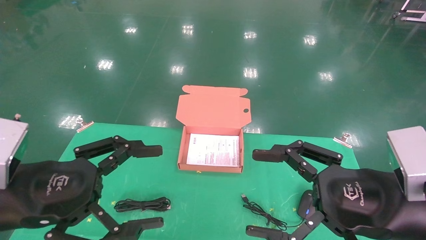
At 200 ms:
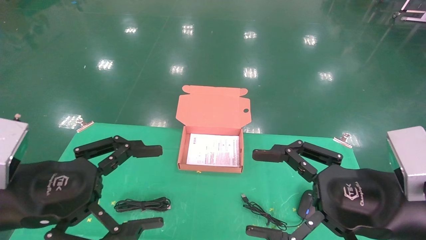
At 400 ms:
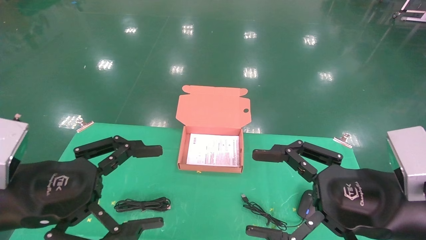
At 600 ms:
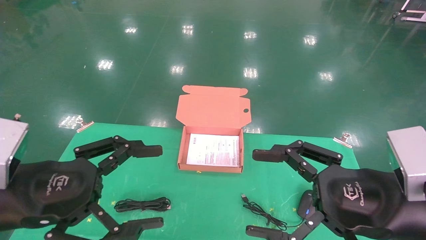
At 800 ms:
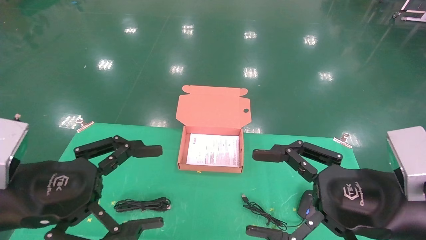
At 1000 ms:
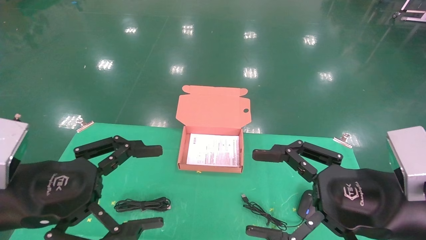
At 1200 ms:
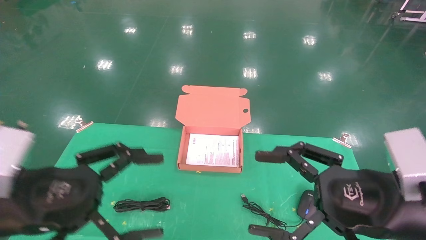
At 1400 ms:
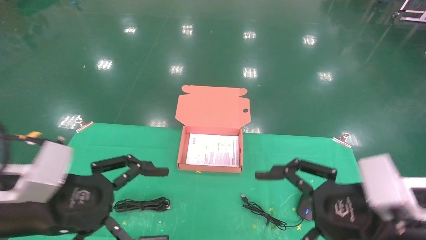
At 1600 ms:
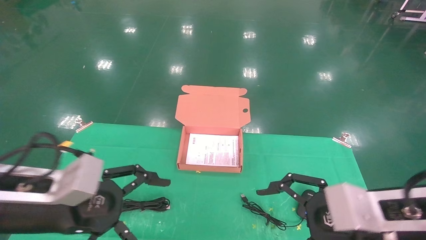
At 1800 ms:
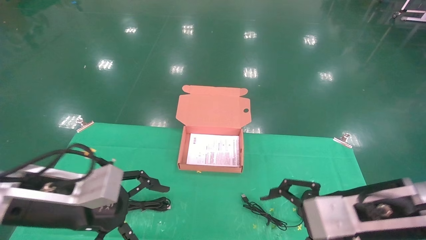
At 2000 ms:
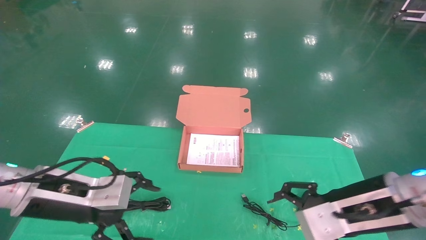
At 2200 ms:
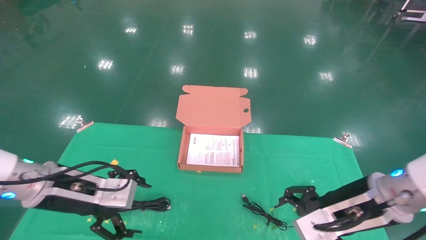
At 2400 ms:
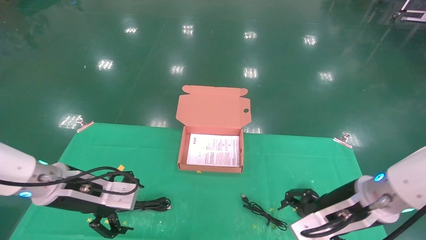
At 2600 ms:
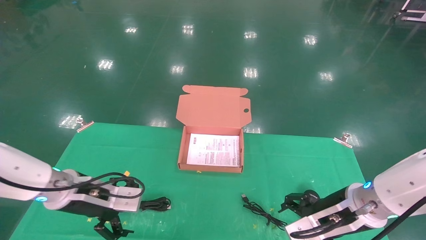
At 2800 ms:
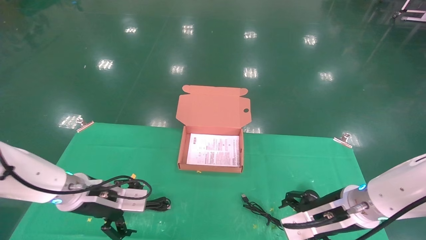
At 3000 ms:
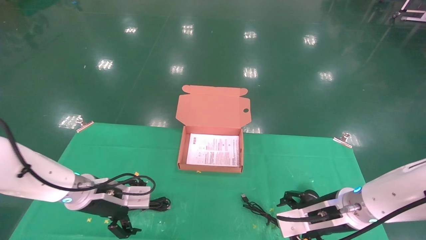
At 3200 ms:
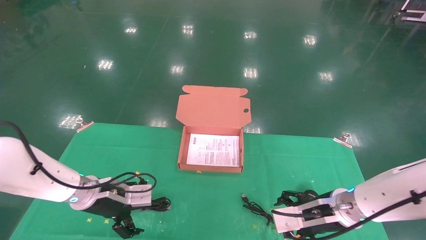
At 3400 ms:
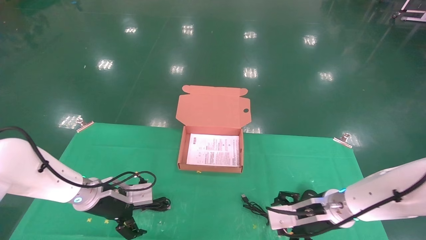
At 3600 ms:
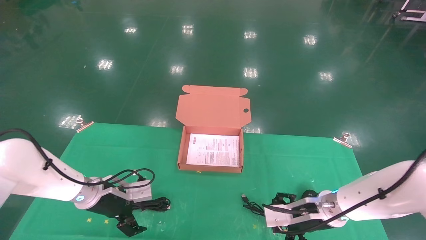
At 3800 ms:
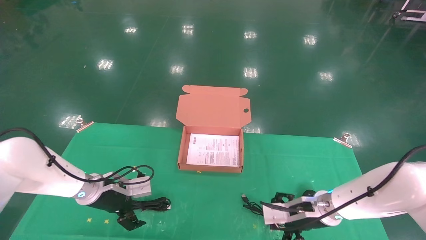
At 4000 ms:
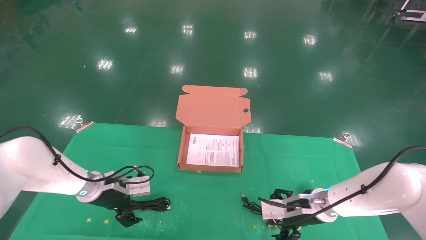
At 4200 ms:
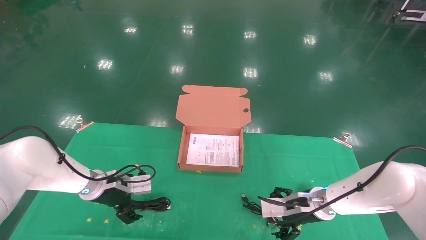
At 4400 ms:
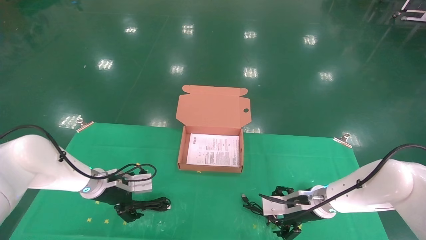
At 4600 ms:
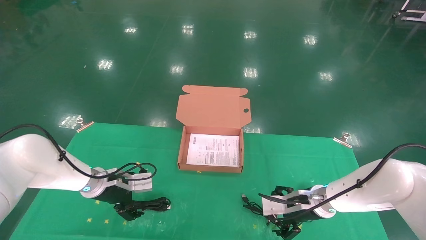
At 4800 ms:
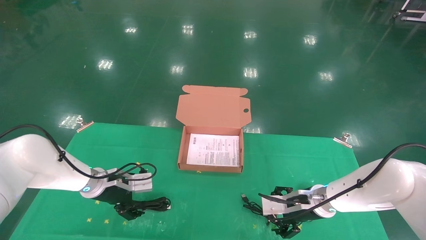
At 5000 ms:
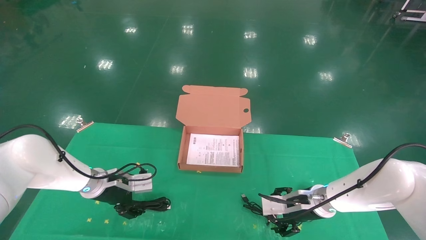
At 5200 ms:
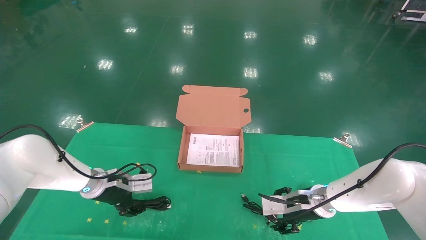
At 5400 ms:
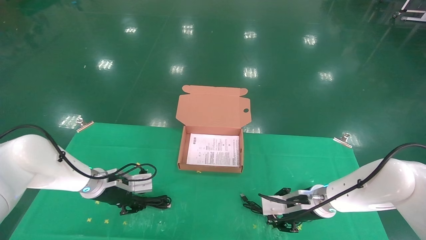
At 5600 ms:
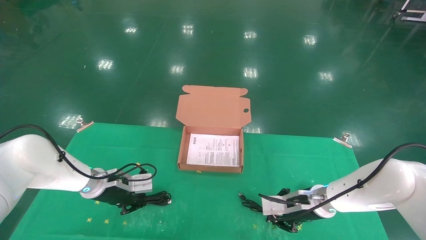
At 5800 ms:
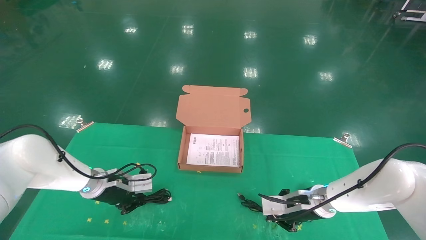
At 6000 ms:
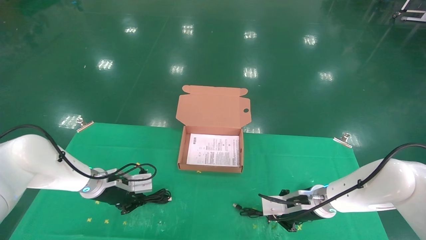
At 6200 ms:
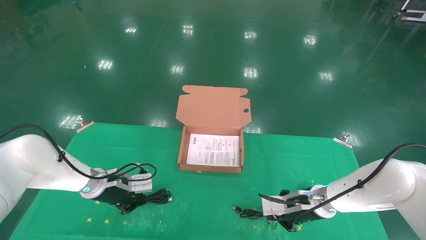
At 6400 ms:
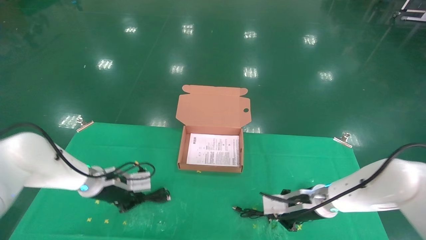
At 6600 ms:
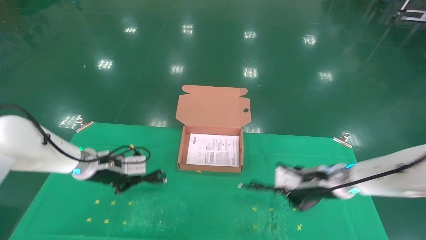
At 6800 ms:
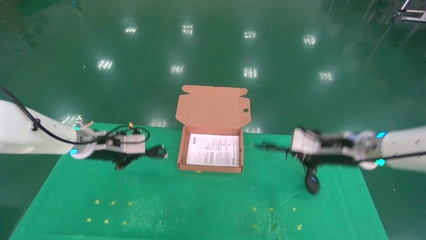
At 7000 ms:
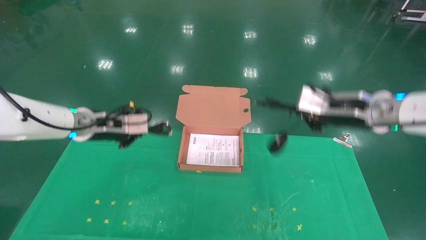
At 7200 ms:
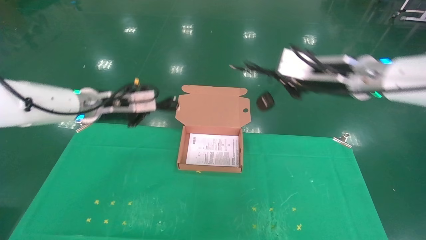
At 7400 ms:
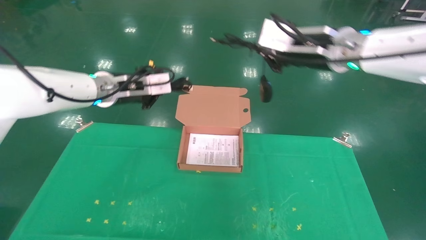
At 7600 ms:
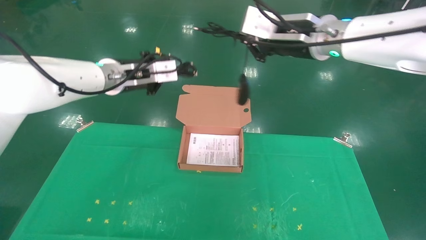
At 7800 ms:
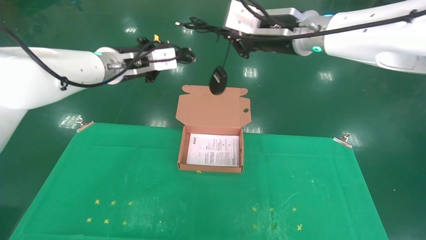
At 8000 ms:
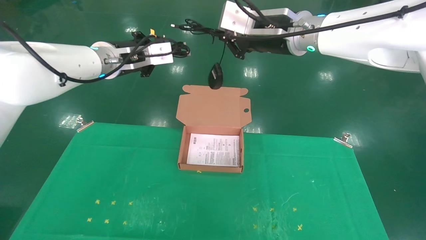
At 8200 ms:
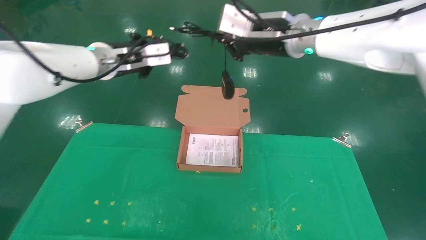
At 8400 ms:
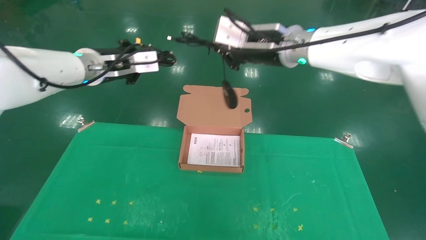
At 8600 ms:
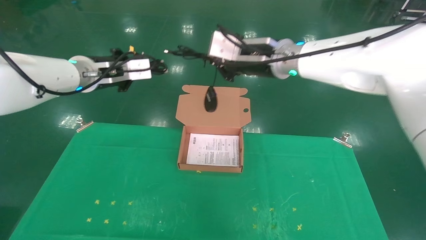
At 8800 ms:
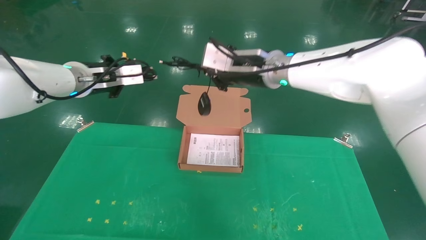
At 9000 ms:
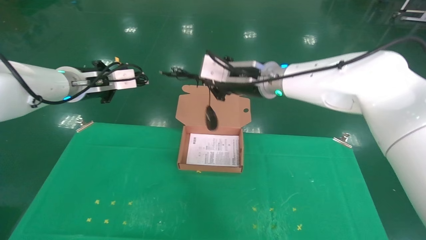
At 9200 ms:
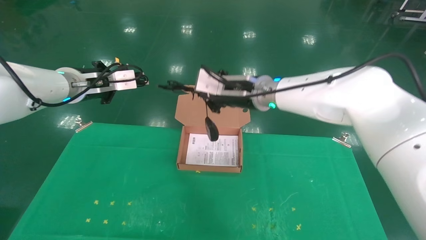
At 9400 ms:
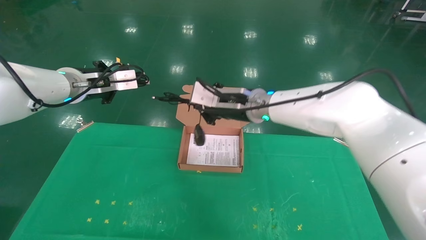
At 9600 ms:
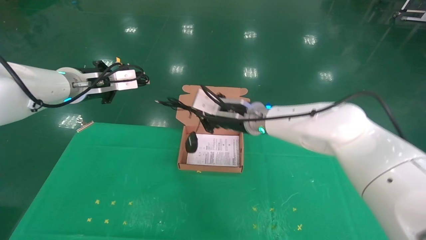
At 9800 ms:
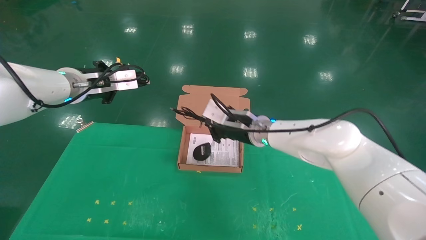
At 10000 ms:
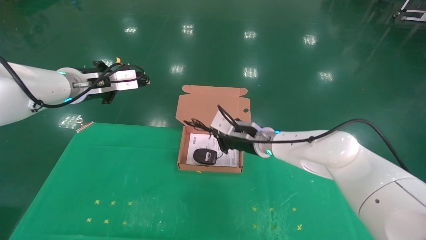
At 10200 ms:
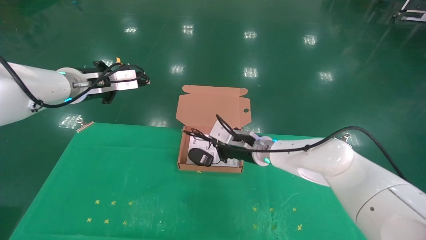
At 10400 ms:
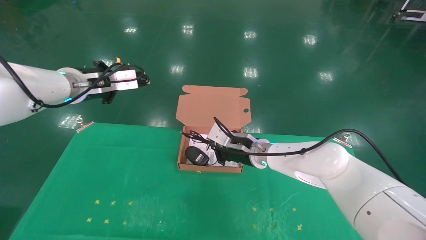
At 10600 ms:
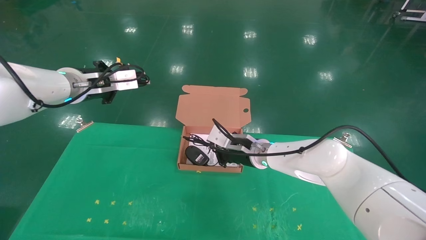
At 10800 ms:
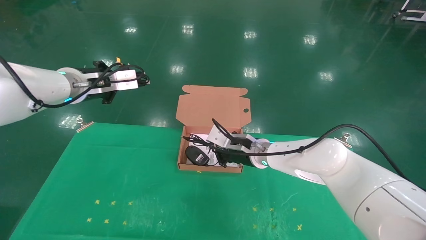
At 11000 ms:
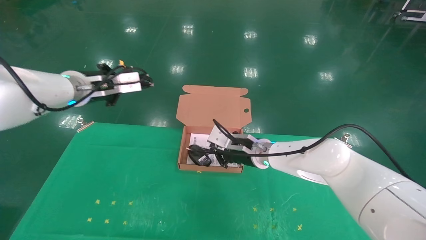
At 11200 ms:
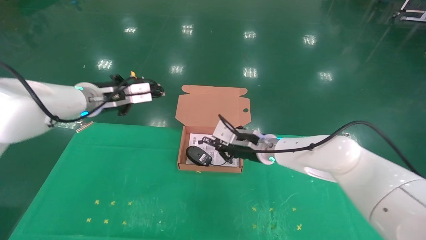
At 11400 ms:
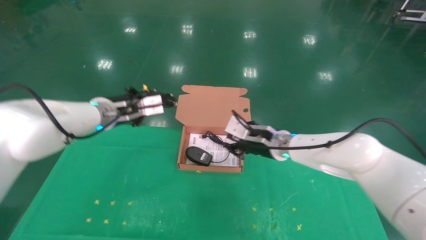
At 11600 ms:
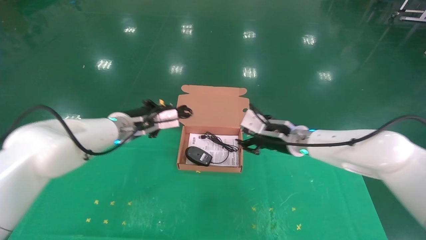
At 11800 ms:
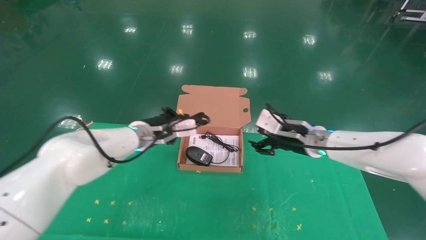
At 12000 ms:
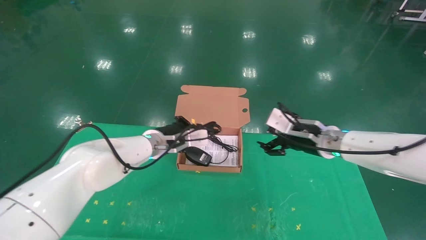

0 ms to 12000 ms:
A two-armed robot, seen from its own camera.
Task of the whole recording: grasp data cable left put into box grasp mouse right put into box.
Step, 1400 ms to 6600 ms: Grab and pick up both the mouse and power cord from the accessory packaging area at the same time.
1600 ms to 3000 ms: Both grippers move forward and downward, about 15 cm.
3000 ms to 4400 ms: The left gripper shifts approximately 5 cm forward. The right gripper heads forward and downward, covering approximately 10 cm.
4400 ms to 6000 ms: The right gripper closes. Meanwhile the left gripper closes its fingers.
6000 ms to 7600 ms: Both grippers move upward, about 30 cm.
7600 ms to 9000 ms: The left gripper heads to the left, covering some 5 cm. The right gripper moves to the left and downward, approximately 10 cm.
9000 ms to 10400 ms: The right gripper shifts approximately 20 cm downward.
10400 ms to 12000 ms: The right gripper shifts approximately 15 cm to the right, and opens; the left gripper moves downward and to the right, approximately 20 cm.

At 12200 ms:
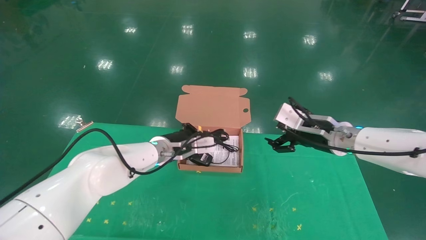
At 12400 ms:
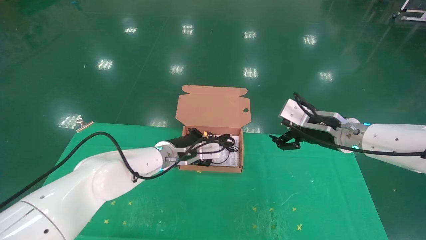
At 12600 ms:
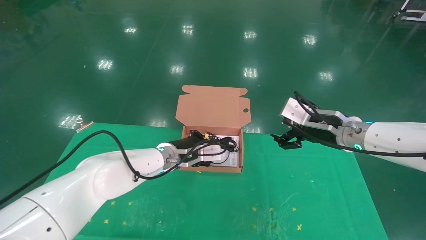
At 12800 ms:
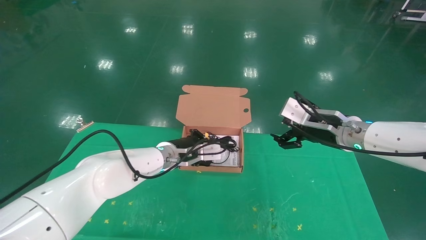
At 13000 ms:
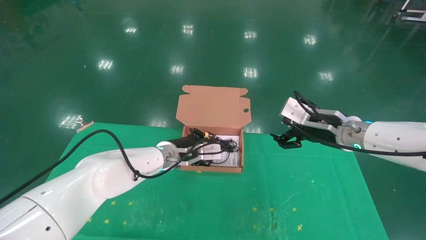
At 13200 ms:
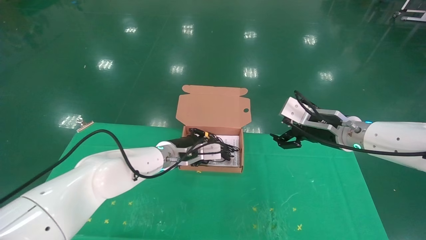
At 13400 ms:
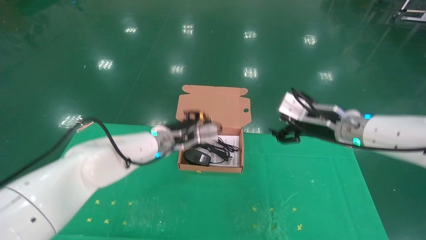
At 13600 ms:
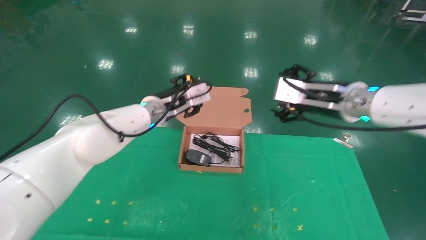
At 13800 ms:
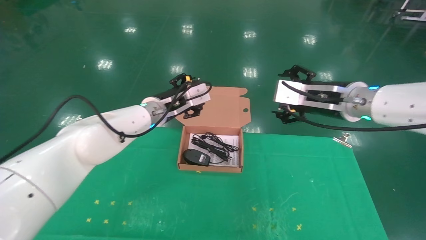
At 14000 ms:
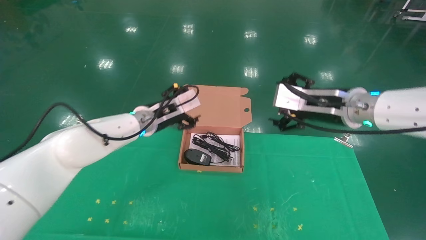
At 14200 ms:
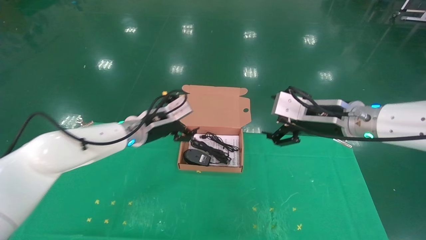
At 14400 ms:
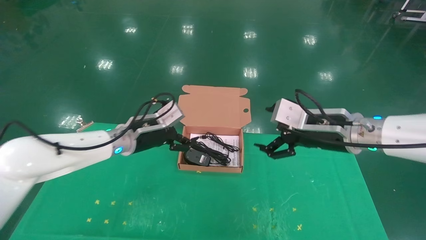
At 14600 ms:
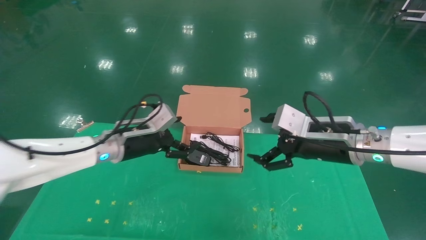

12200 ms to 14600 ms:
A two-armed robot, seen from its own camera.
Task of the whole recording: grasp data cable left put into box grasp mouse right put into box.
12200 ms to 13400 ms: The grippers move only a little.
13400 ms to 14600 ms: The right gripper heads backward, covering about 5 cm; the left gripper goes about 10 cm to the left and backward, and opens up.
